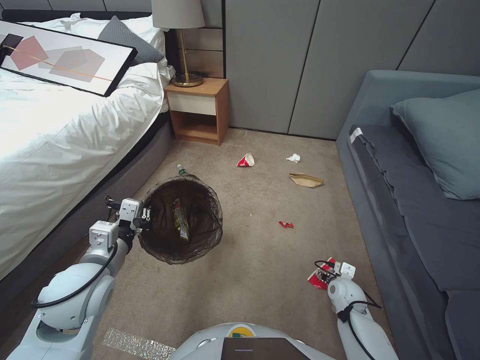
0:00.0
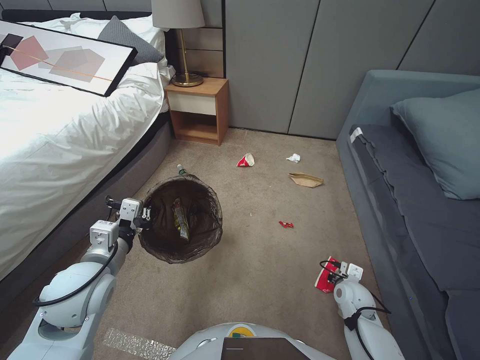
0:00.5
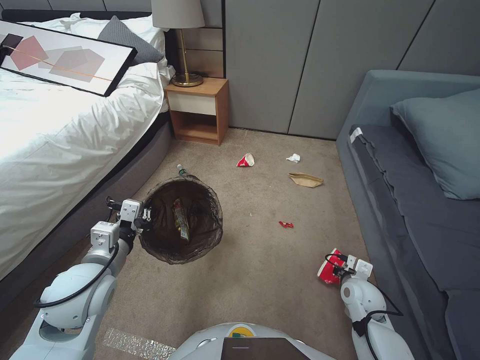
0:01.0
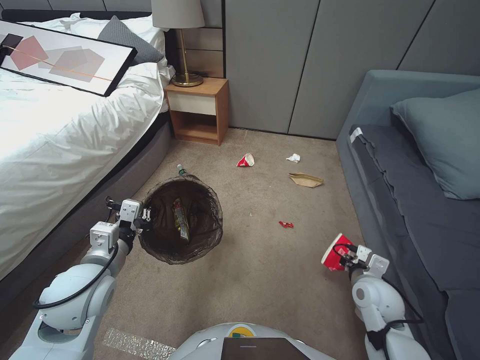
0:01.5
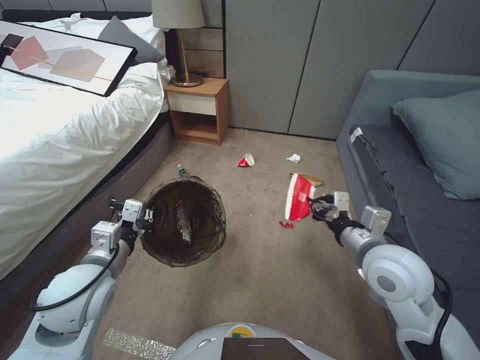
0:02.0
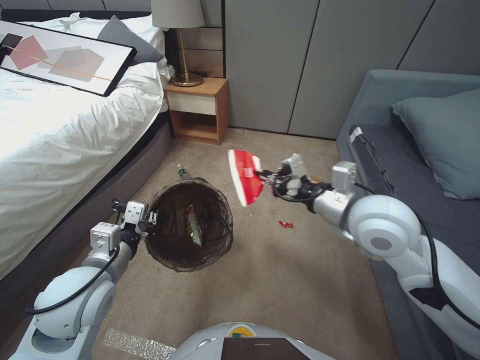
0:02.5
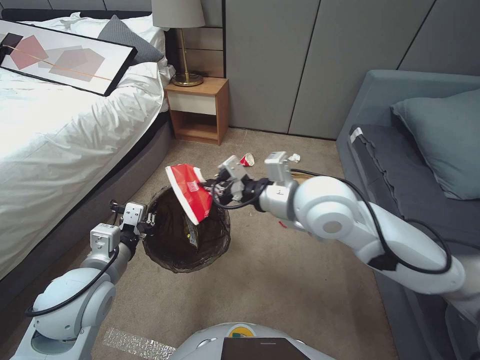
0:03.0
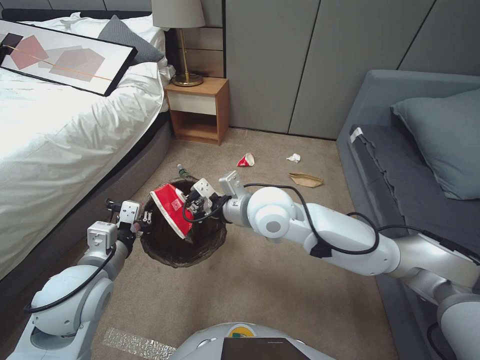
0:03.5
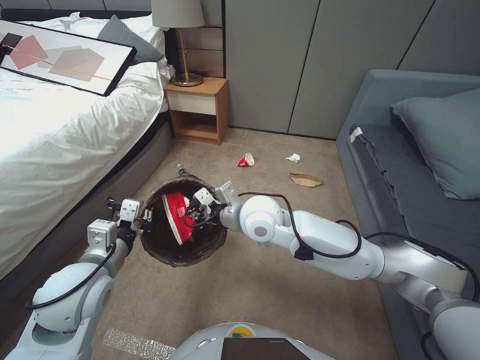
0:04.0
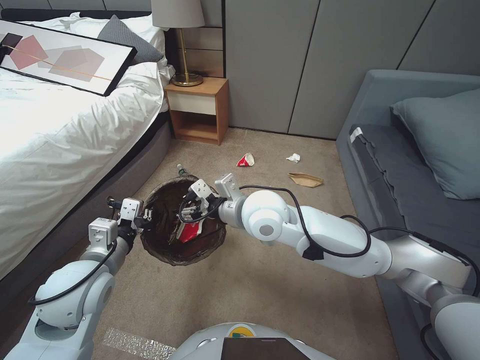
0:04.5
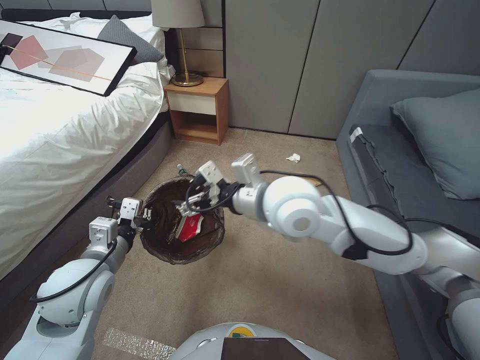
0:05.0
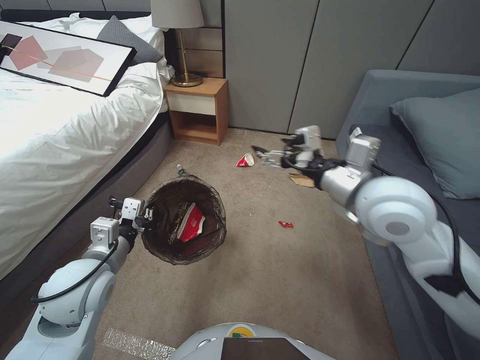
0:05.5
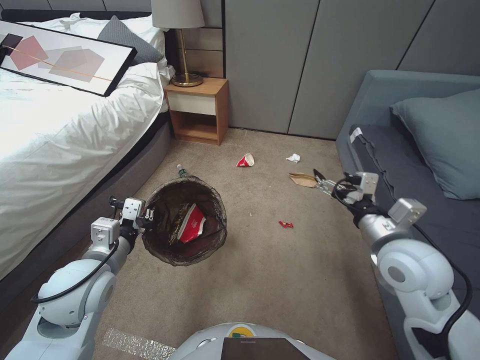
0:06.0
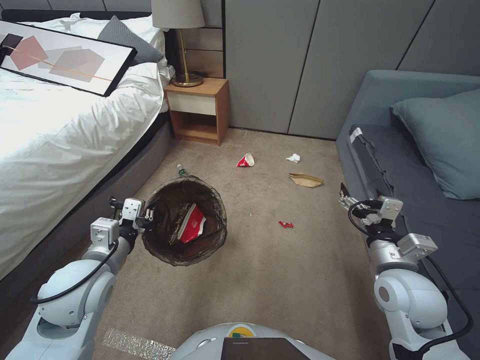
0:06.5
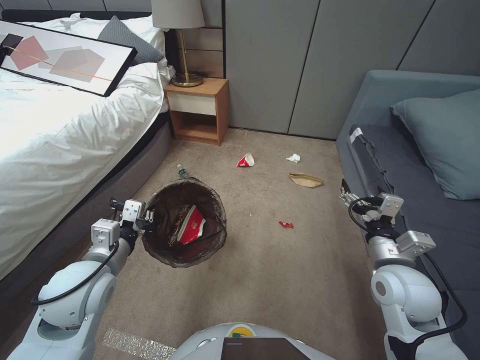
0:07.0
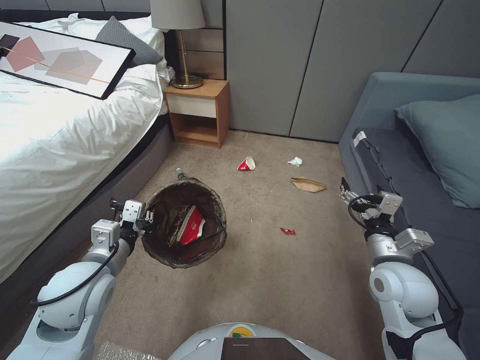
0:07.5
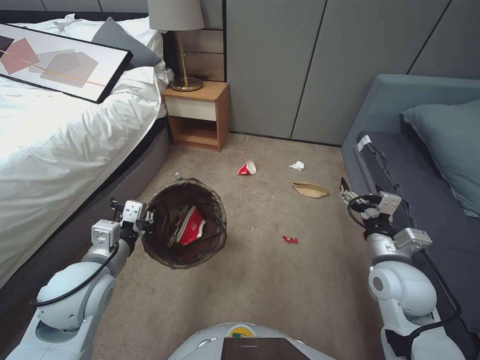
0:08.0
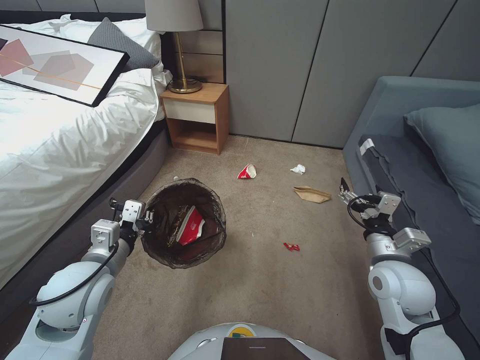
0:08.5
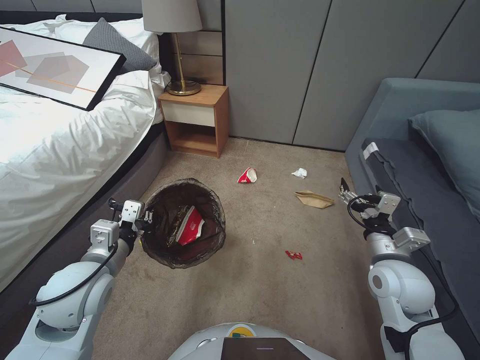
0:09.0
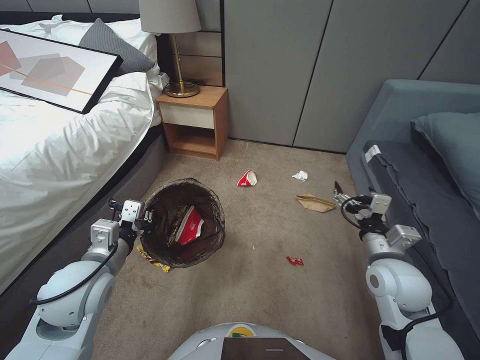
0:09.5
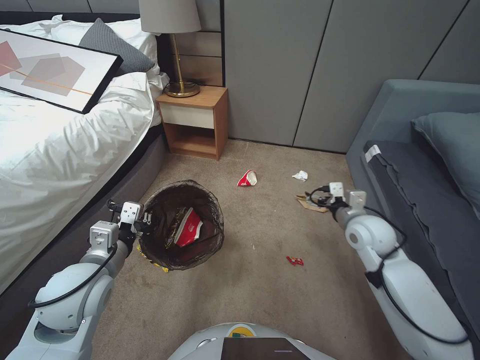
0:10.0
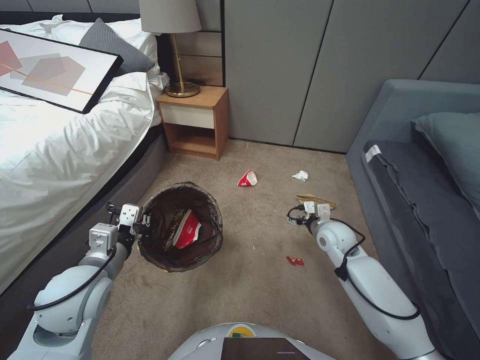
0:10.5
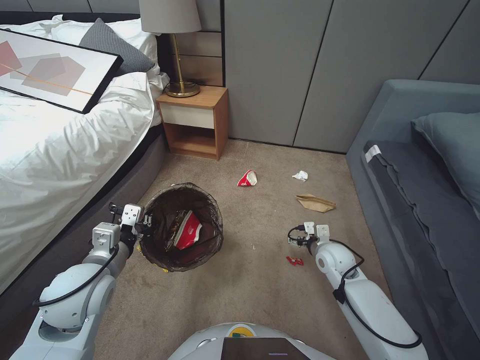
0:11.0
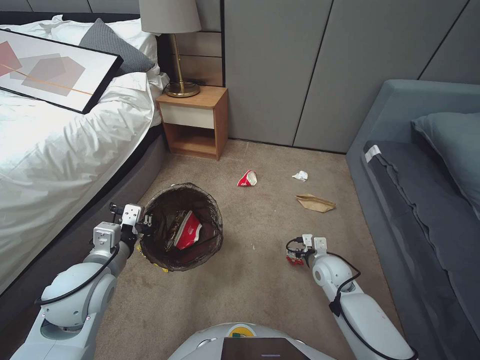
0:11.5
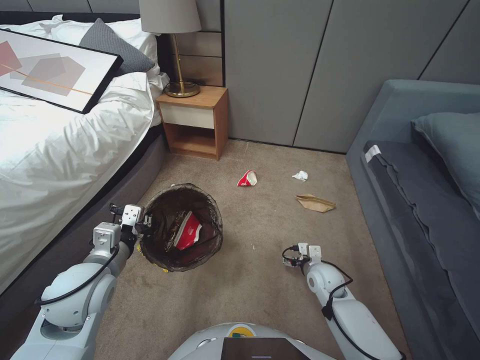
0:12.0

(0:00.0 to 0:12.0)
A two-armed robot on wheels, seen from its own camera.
Task of the whole recording: Pick up the trash bin, then pick up the garbage from the floor and place it into the trash bin.
0:00.0 - 0:02.0: The right gripper goes some 30 cm upward, and closes its fingers.
0:02.0 - 0:04.0: The right gripper is displaced to the left and forward by roughly 25 cm.
0:04.0 - 0:06.0: The right gripper goes about 25 cm to the right, and opens its fingers.
0:06.0 - 0:08.0: The right gripper shifts about 10 cm downward.
0:08.0 - 0:10.0: The right gripper moves forward, approximately 10 cm.
0:10.0 - 0:12.0: The right gripper shifts approximately 20 cm downward.

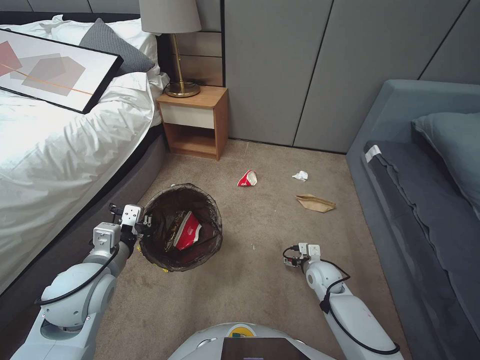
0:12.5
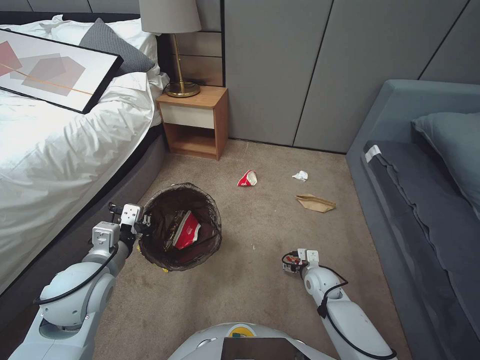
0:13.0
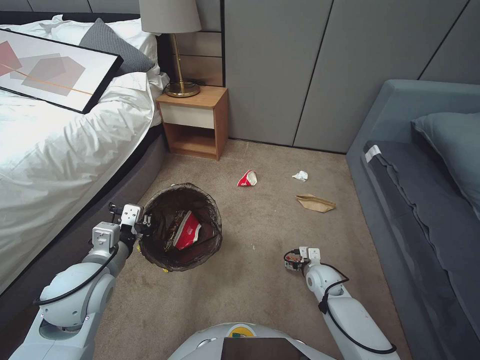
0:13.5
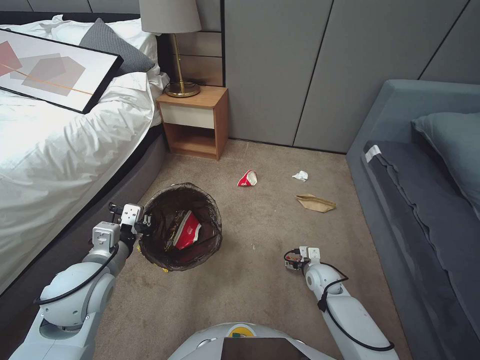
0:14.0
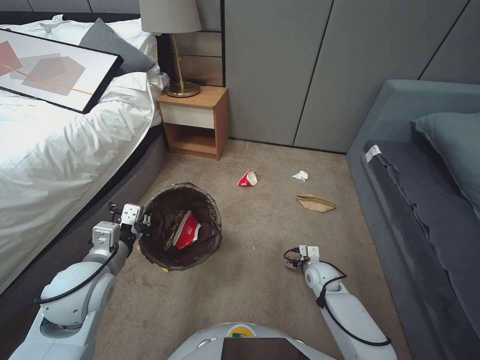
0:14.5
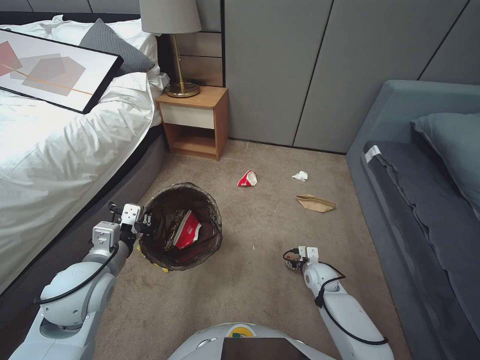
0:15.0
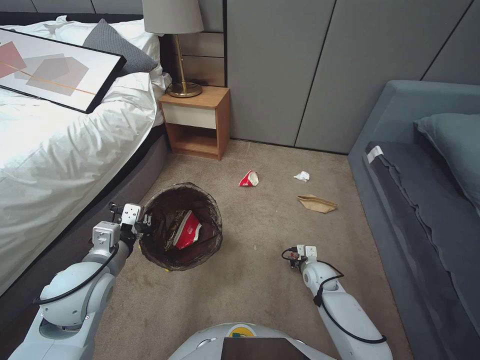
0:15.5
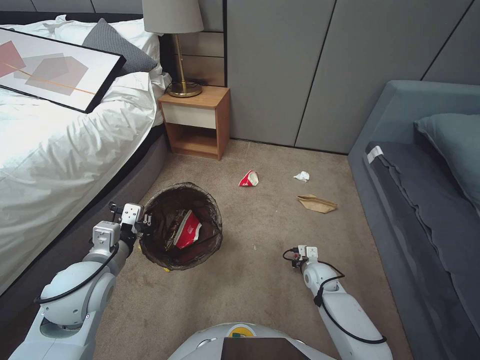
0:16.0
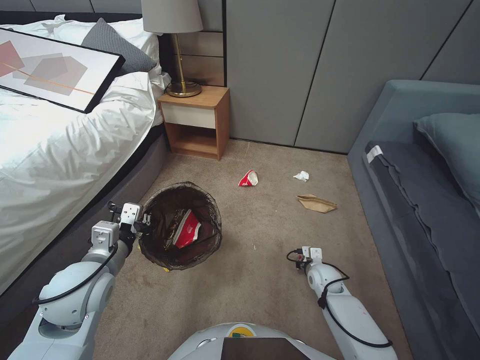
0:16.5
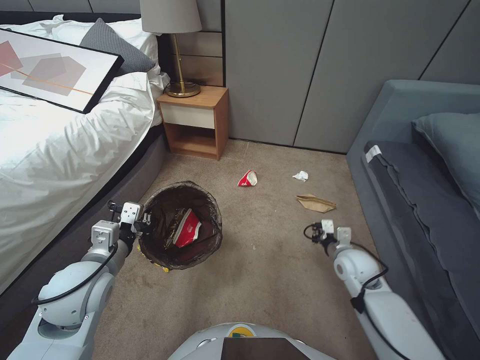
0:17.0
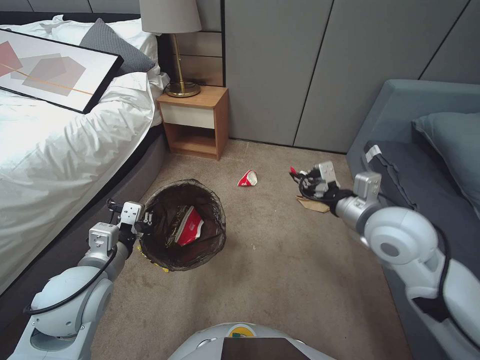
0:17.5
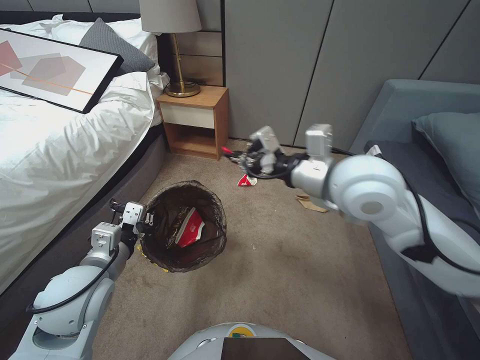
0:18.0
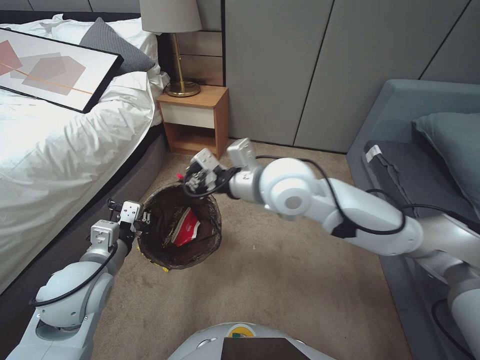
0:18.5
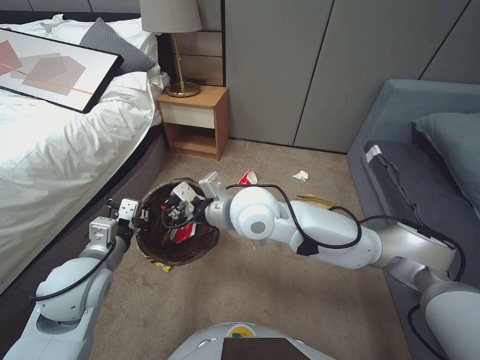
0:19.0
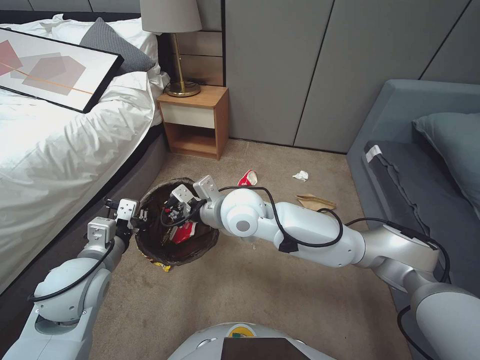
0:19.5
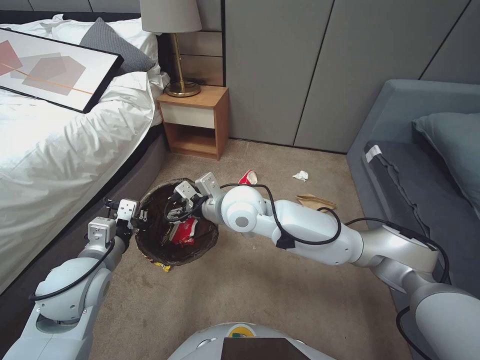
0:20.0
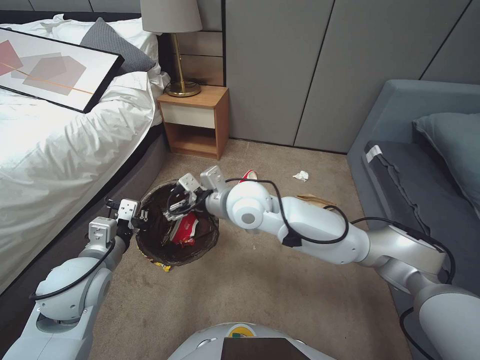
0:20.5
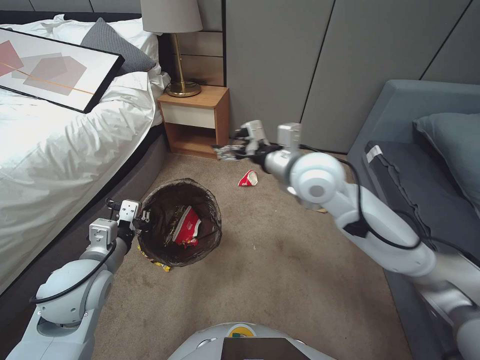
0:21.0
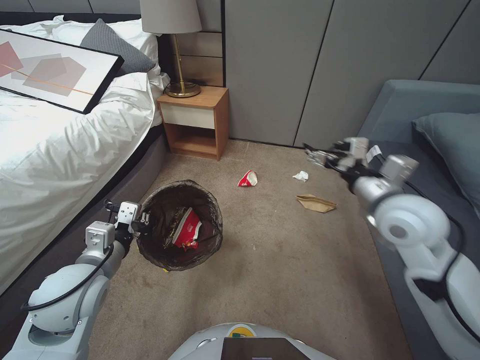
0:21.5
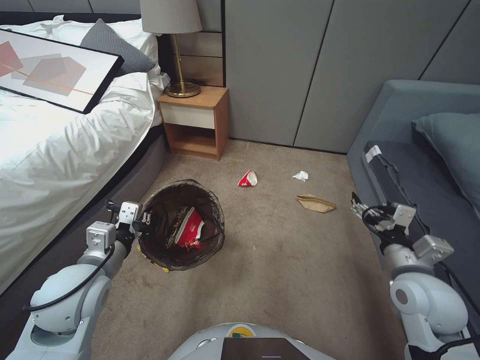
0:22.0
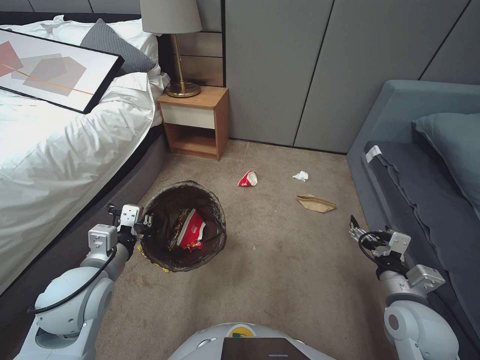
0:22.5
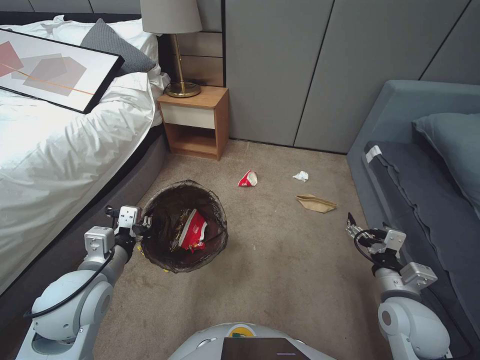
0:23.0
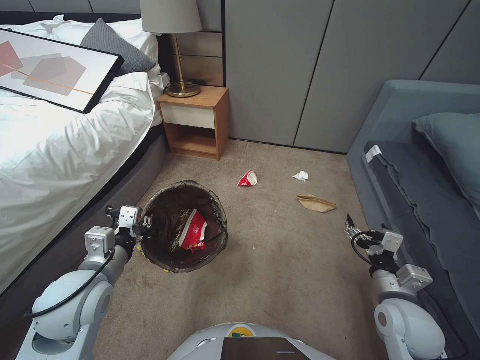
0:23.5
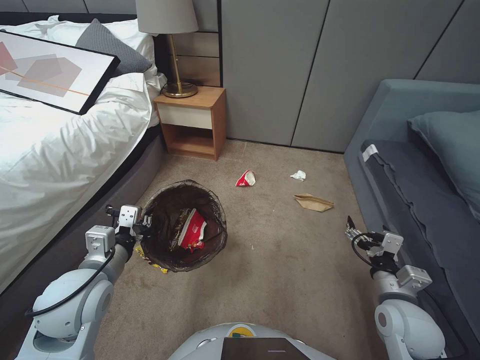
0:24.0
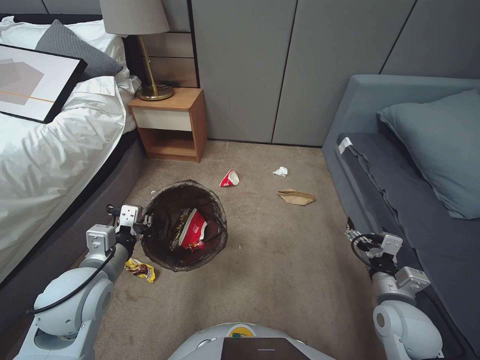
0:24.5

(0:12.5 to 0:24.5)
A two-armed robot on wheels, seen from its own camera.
Task of the whole recording: Pick up the trash bin, then pick up the garbage from the floor and place it into the trash bin.
0:12.5 - 0:14.5: The grippers stay close to where they were, moving slightly.
0:14.5 - 0:16.5: The right gripper closes its fingers.
0:16.5 - 0:18.5: The right gripper is displaced upward and to the left by approximately 50 cm.
0:18.5 - 0:20.5: The right gripper heads downward and to the left, covering about 10 cm, and opens its fingers.
0:20.5 - 0:22.5: The right gripper shifts roughly 40 cm to the right, backward and downward.

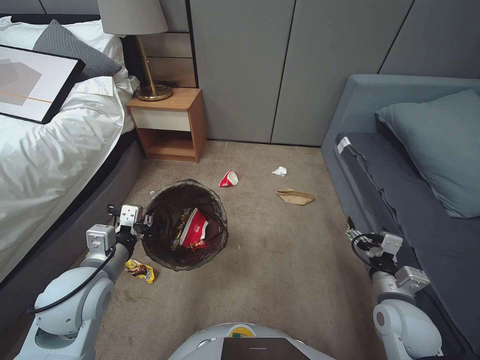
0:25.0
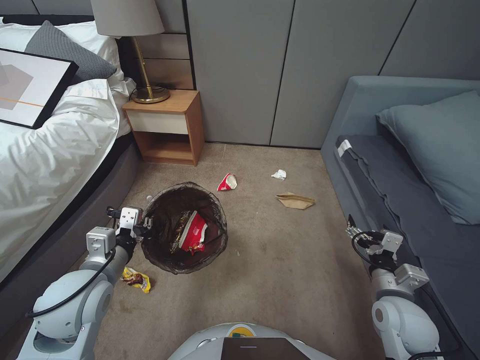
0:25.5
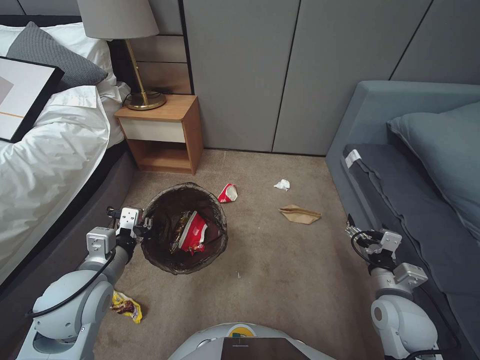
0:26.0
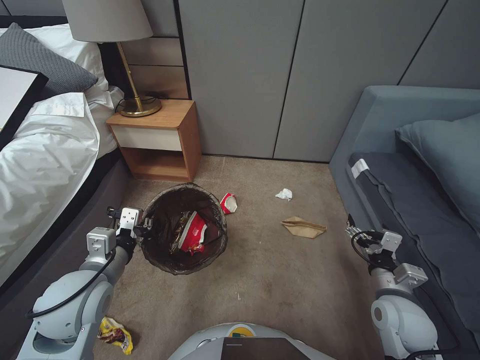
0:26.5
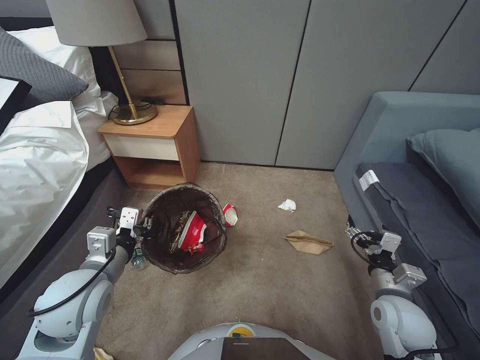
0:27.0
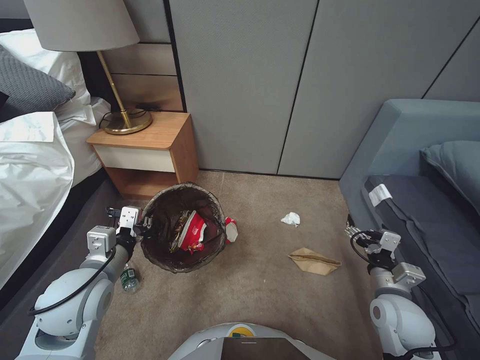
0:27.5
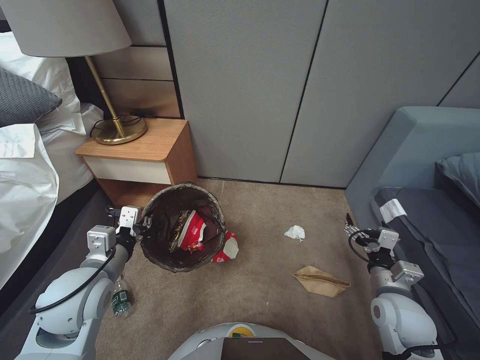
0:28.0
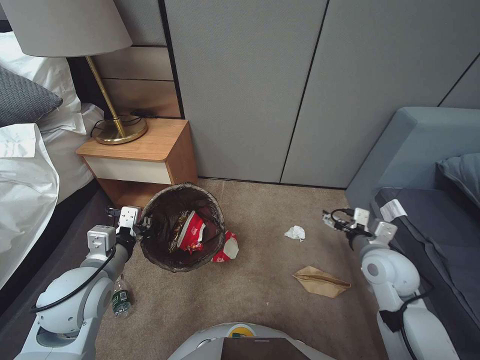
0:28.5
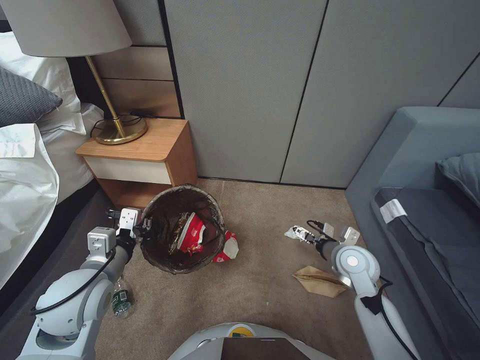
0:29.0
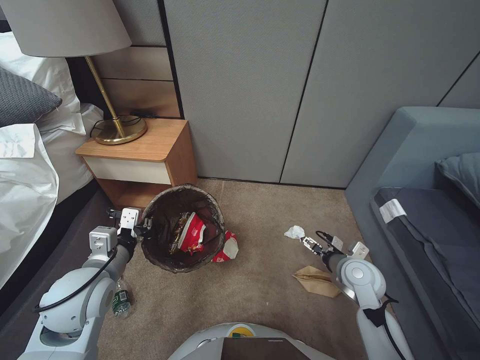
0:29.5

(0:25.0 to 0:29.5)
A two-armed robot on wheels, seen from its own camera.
Task of the whole recording: Pick up the trash bin, then pick up the garbage from the floor and place it into the trash bin.
0:27.0 - 0:29.5: The right gripper is displaced forward by approximately 10 cm.
